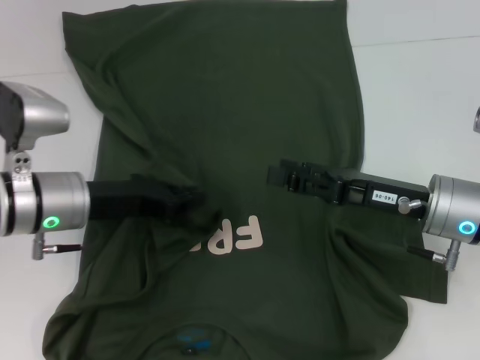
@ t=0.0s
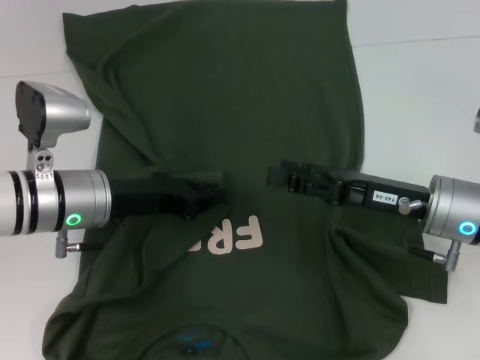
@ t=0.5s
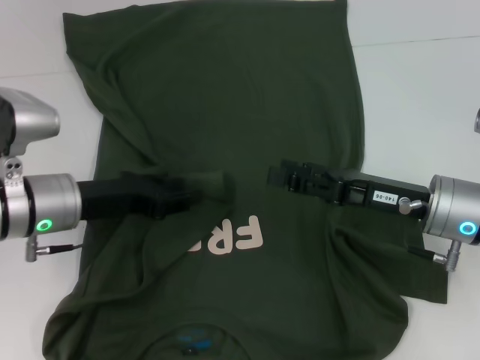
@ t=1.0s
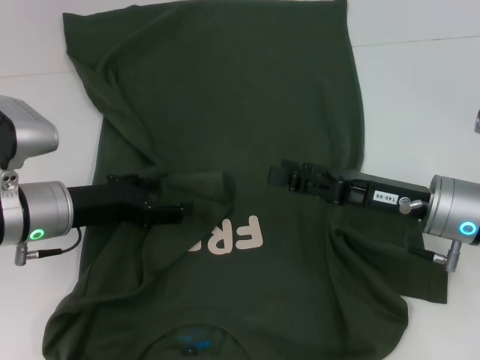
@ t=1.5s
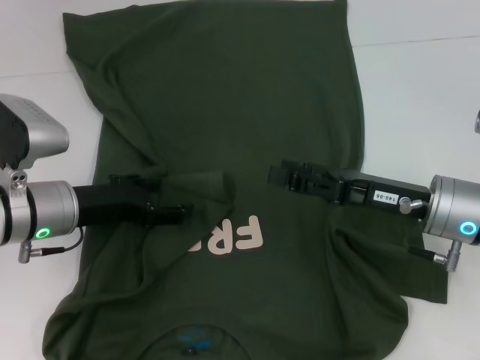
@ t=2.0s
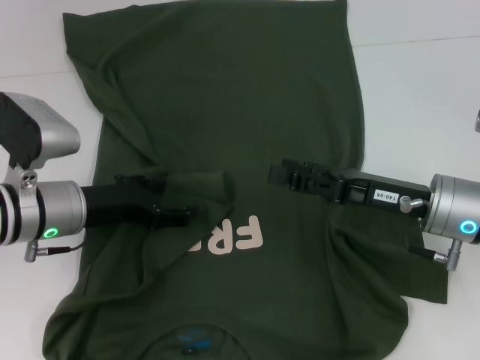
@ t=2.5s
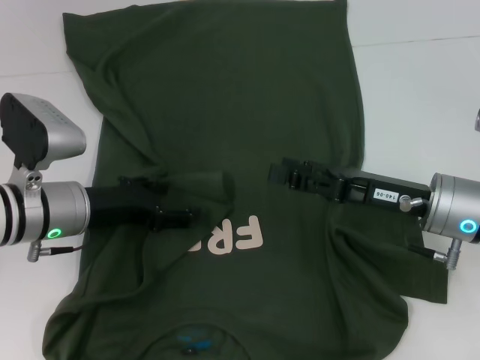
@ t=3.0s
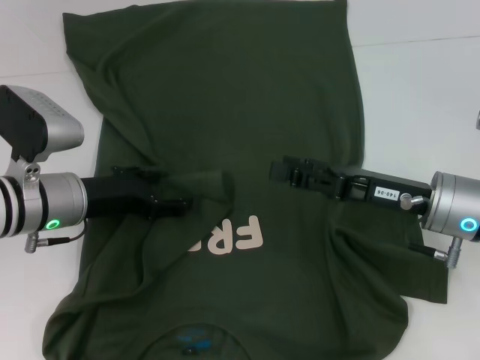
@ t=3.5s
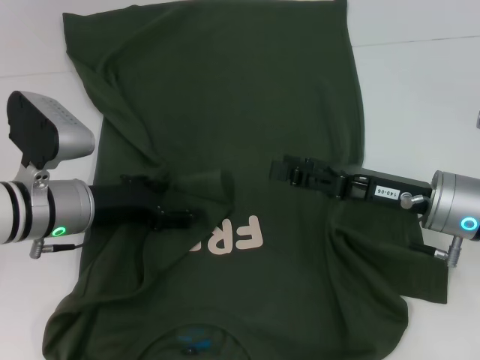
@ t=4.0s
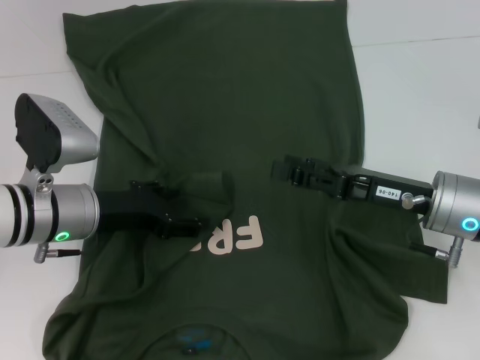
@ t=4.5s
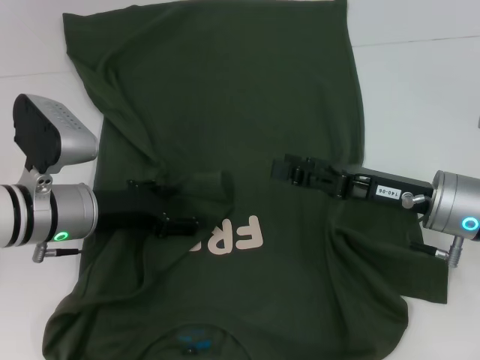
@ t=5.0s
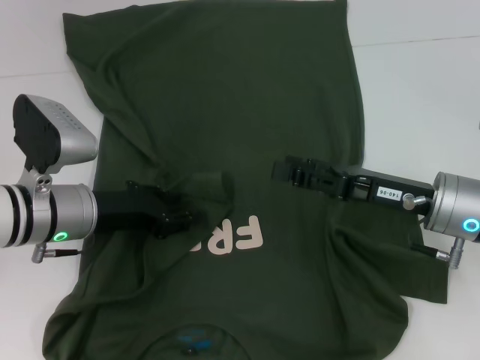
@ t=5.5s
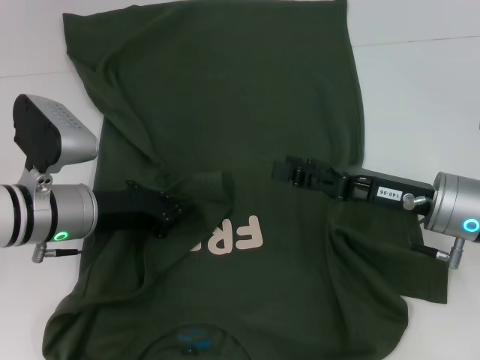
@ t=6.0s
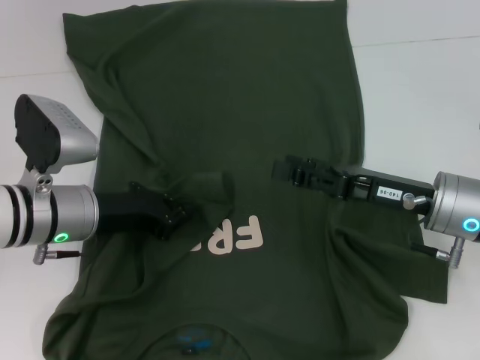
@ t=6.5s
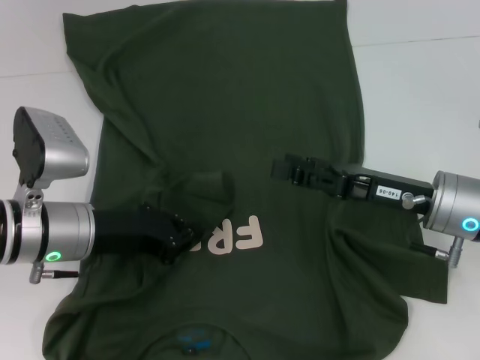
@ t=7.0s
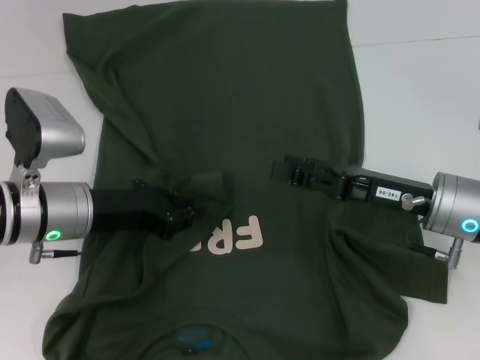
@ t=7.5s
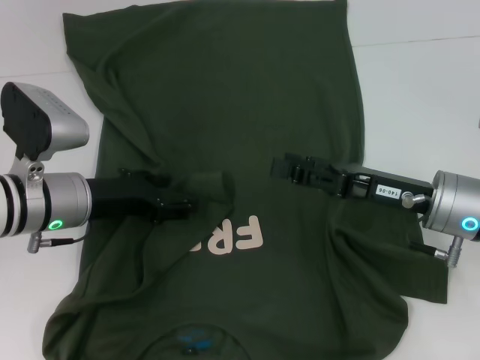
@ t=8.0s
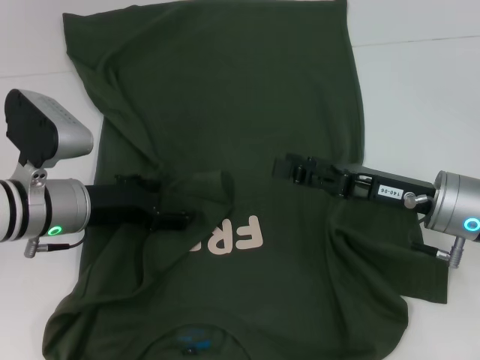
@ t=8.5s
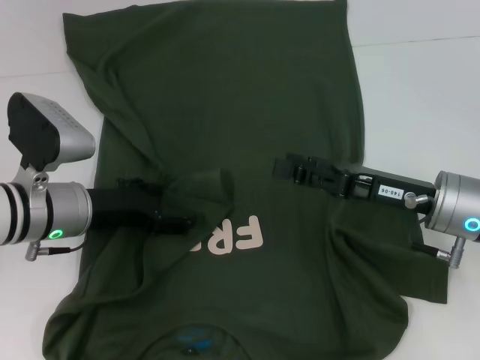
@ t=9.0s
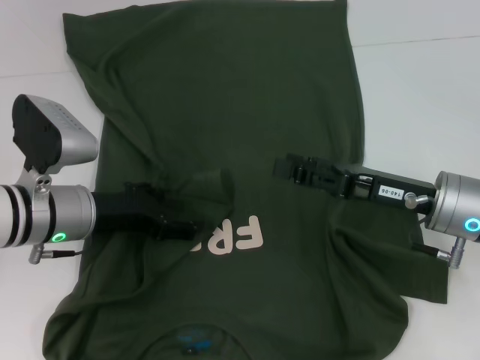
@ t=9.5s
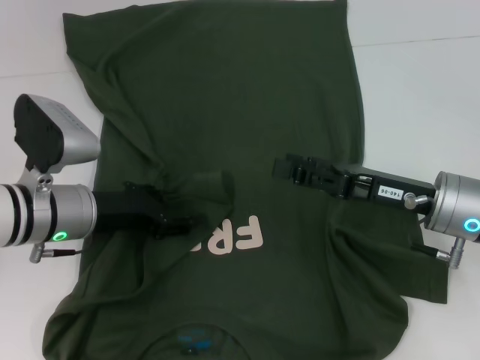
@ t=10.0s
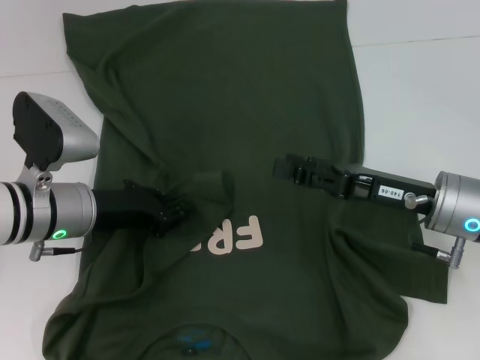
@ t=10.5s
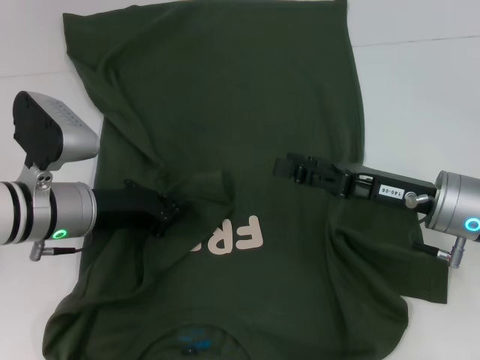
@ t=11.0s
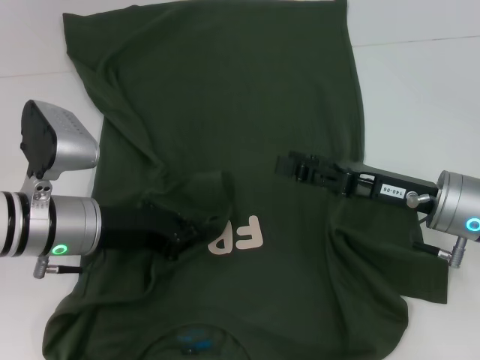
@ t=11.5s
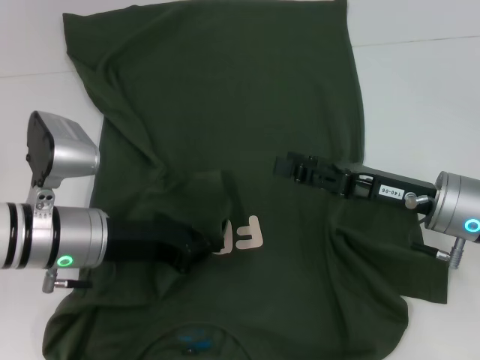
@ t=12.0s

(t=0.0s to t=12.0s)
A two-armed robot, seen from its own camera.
t=0.0s - t=2.0s: The left gripper opens up.
t=2.0s - t=4.0s: The grippers move only a little.
t=4.0s - t=6.0s: The left gripper closes its fingers.
t=6.0s - t=8.0s: The grippers make only small movements.
t=8.0s - t=10.0s: Both grippers stay about where they are.
t=10.0s - t=12.0s: The left gripper closes up.

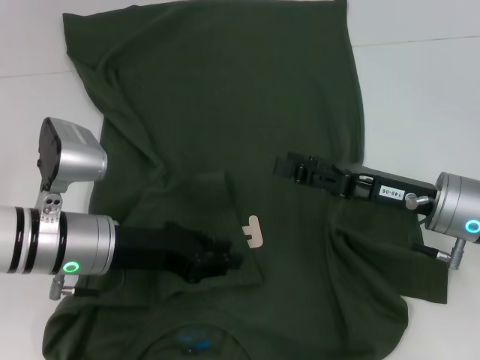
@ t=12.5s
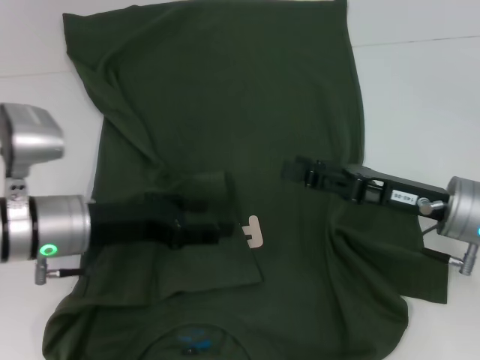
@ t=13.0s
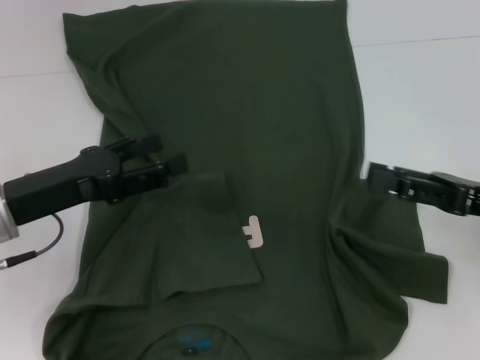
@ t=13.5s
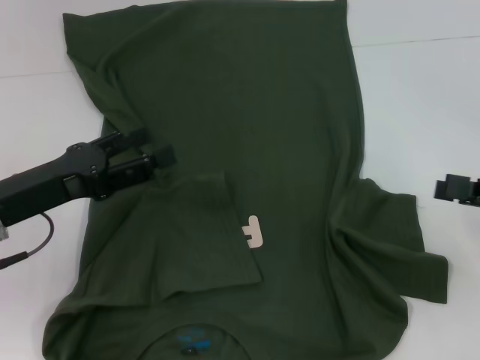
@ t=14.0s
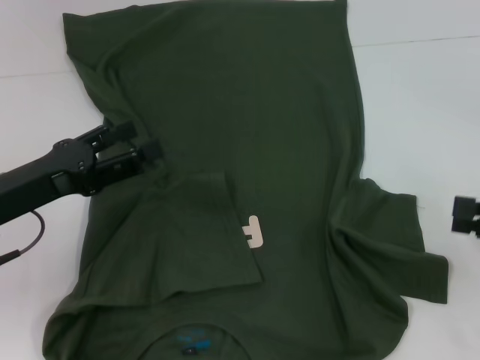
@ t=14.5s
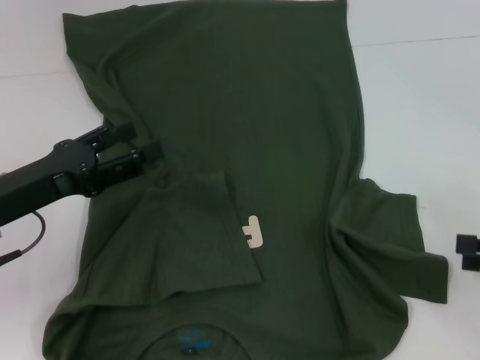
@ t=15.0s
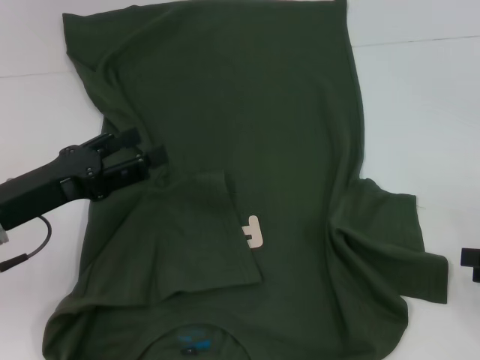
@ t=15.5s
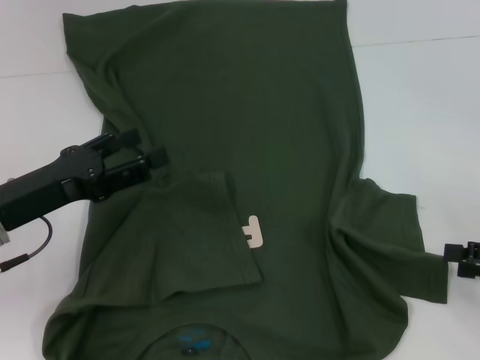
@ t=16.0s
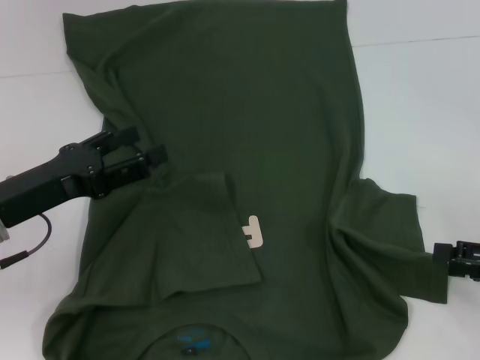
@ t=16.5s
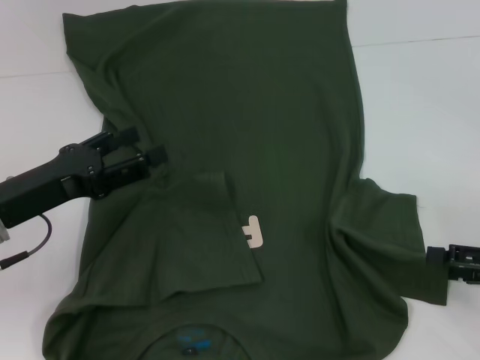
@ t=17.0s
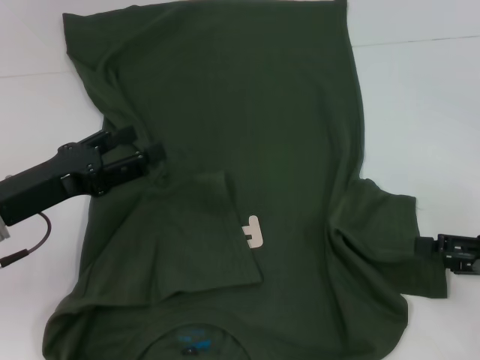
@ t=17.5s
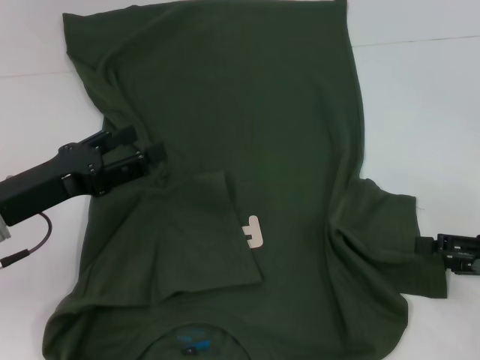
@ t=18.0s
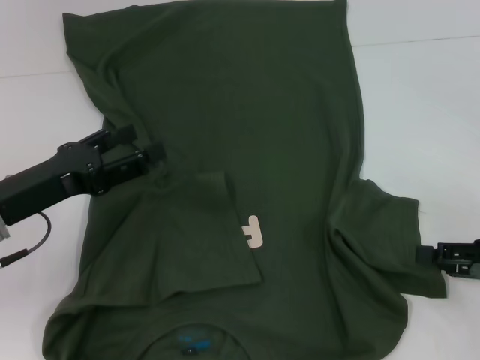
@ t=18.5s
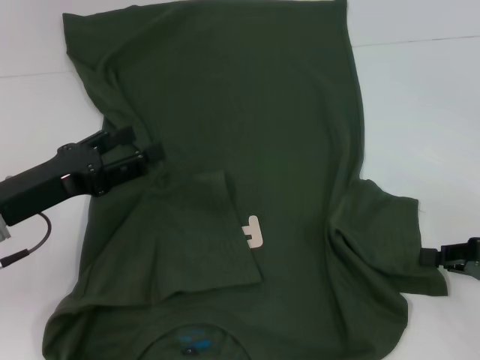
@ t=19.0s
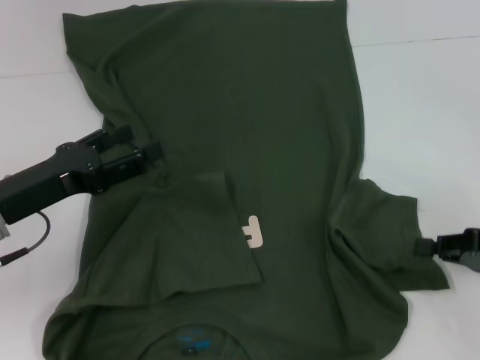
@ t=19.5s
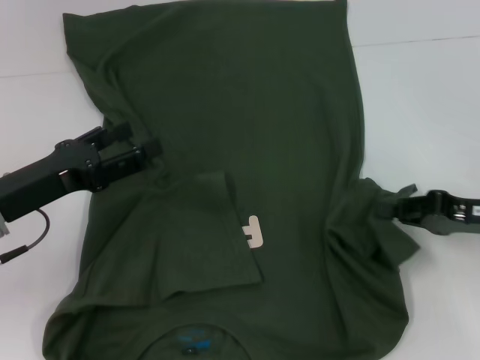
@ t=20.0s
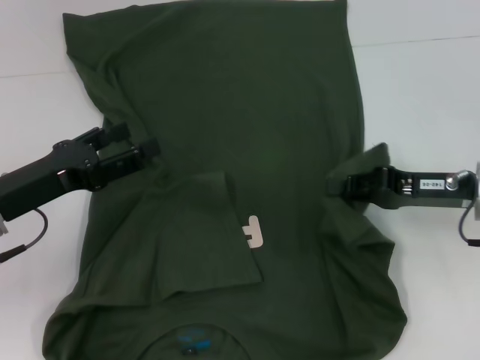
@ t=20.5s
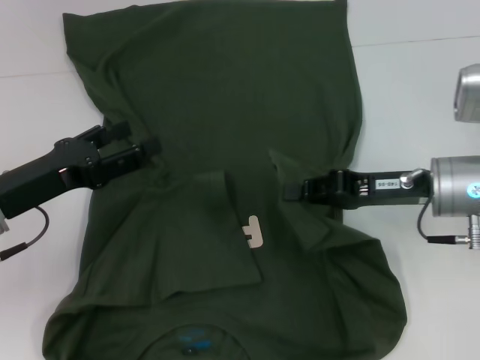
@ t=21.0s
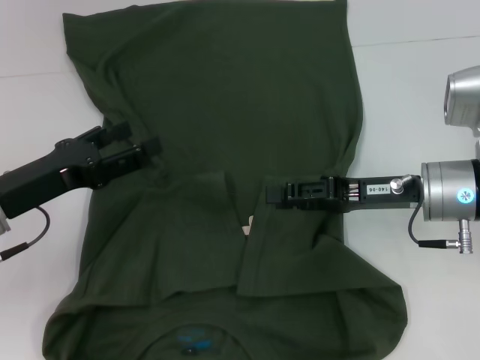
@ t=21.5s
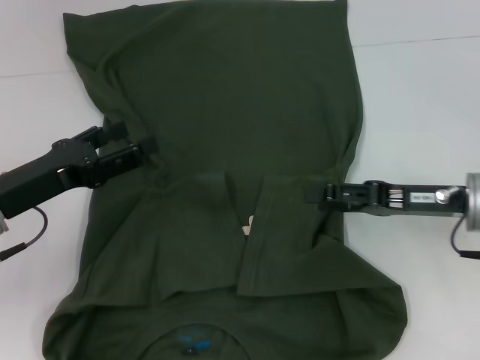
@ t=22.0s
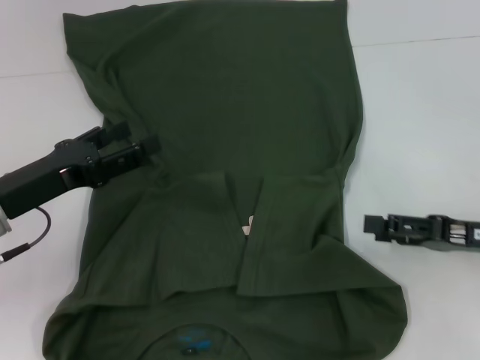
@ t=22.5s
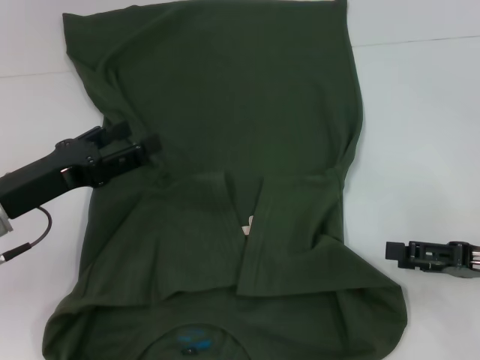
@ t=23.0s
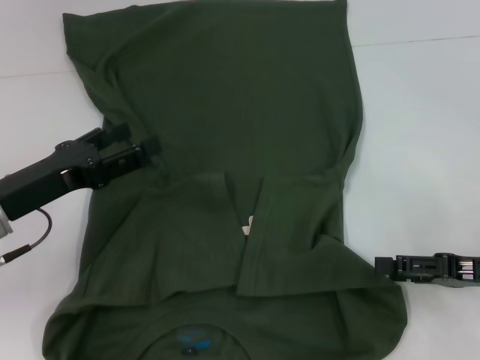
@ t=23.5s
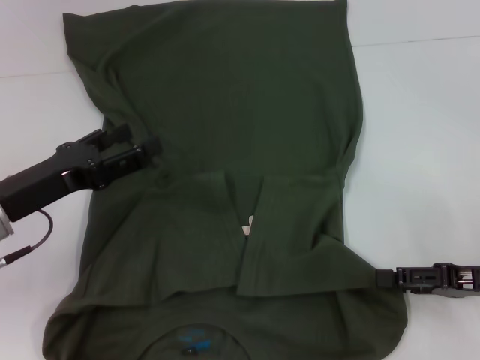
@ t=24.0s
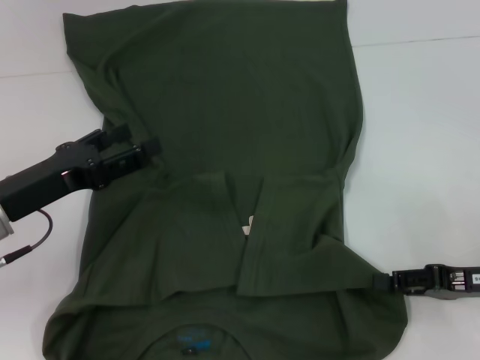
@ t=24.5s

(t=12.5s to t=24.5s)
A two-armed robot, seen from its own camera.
Step, t=12.5s - t=22.0s: Fold the bottom right sleeve with your right hand.
t=12.5s - t=14.5s: The left gripper is displaced to the left by approximately 10 cm, and opens; the right gripper moves to the right and backward, roughly 15 cm.
t=14.5s - t=18.5s: The grippers make only small movements.
t=18.5s - t=20.5s: The right gripper shifts some 10 cm to the left and forward, and closes its fingers.
t=20.5s - t=22.5s: The right gripper is displaced backward by roughly 5 cm, and opens.
t=22.5s - t=24.5s: The grippers make only small movements.

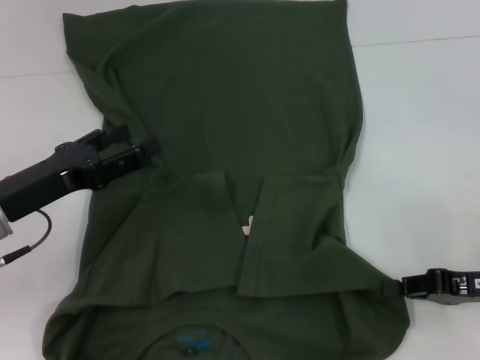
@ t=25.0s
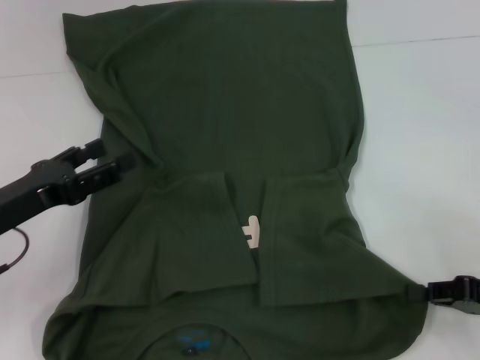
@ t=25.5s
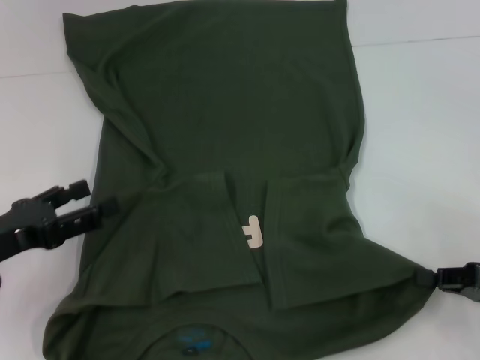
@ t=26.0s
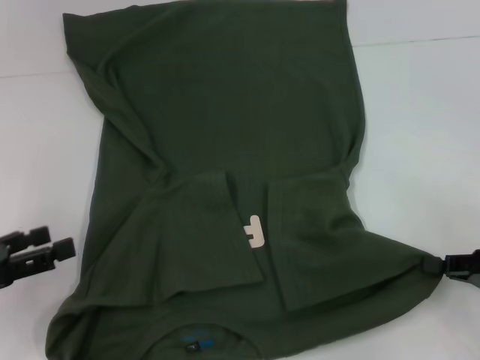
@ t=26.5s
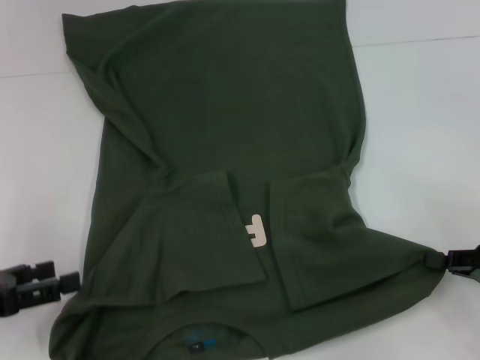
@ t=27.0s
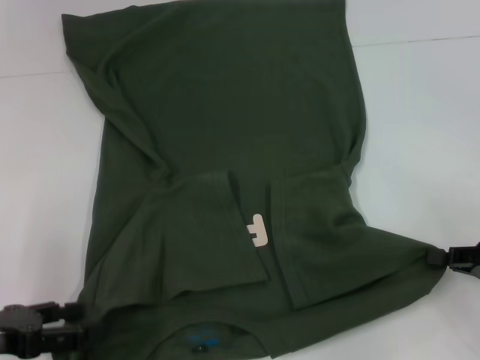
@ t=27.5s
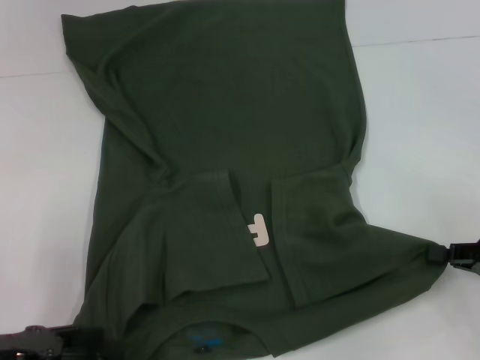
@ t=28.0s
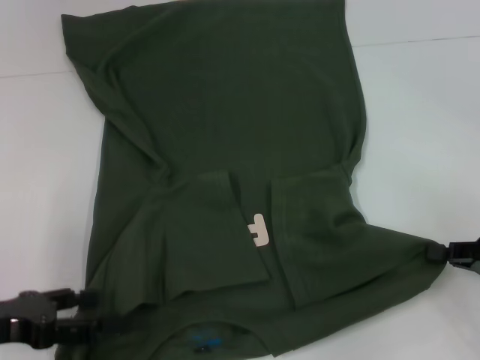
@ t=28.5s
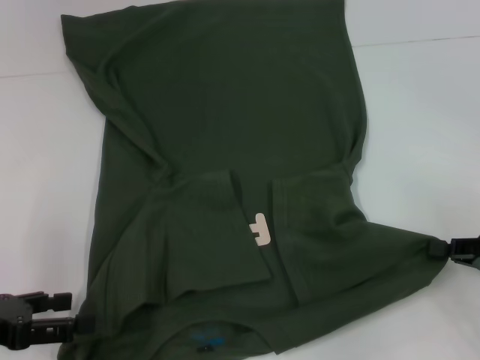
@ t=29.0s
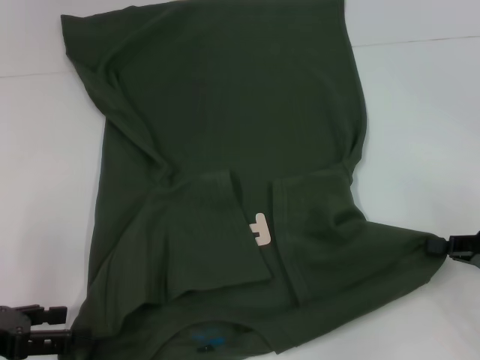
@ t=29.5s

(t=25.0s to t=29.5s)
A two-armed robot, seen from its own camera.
t=25.0s - t=27.0s: The left gripper heads to the left and backward, covering roughly 10 cm.
t=27.0s - t=29.5s: There are only small adjustments of the grippers.
